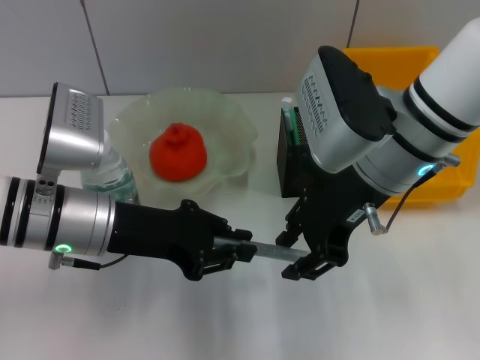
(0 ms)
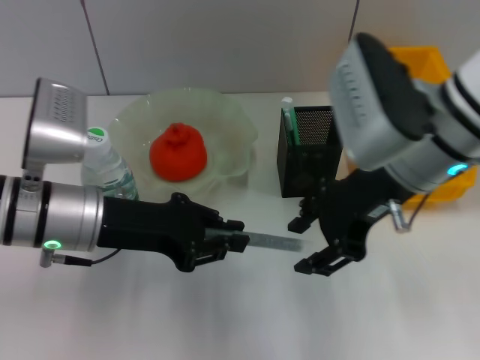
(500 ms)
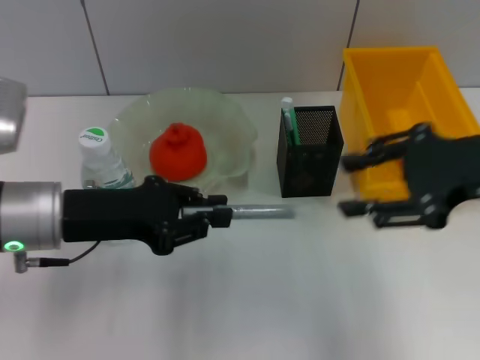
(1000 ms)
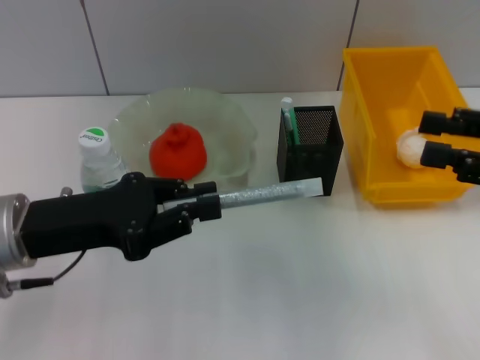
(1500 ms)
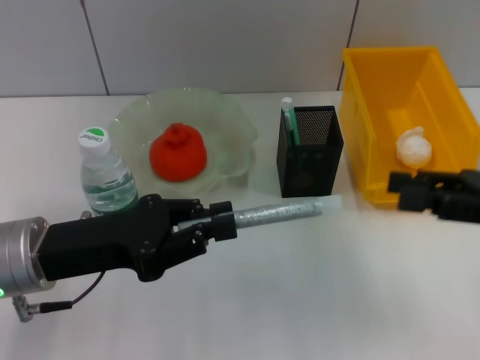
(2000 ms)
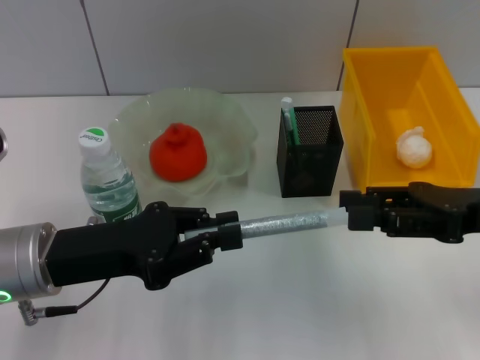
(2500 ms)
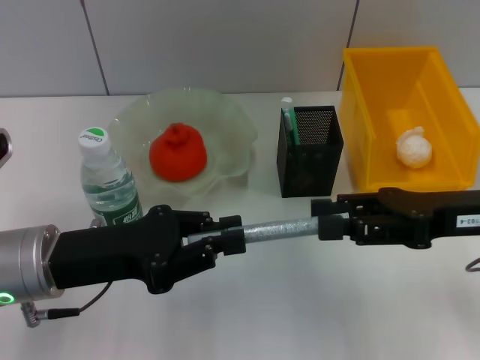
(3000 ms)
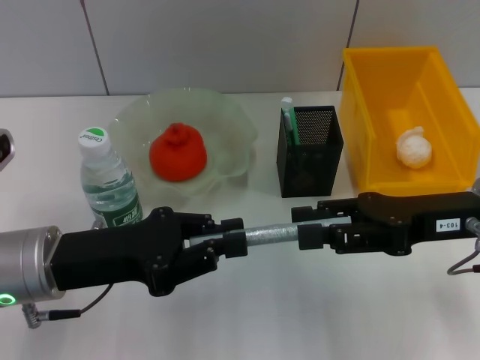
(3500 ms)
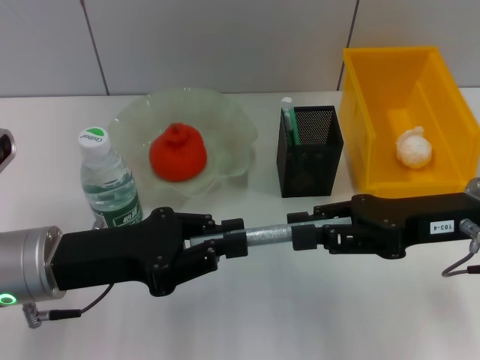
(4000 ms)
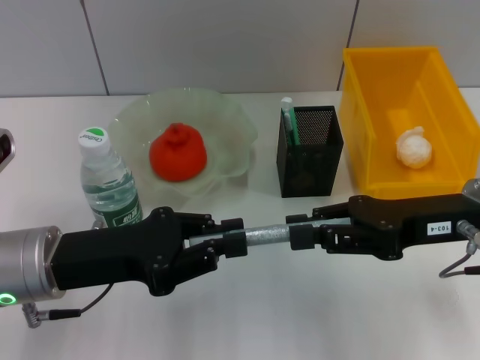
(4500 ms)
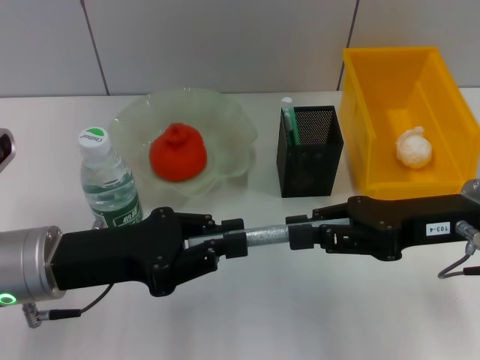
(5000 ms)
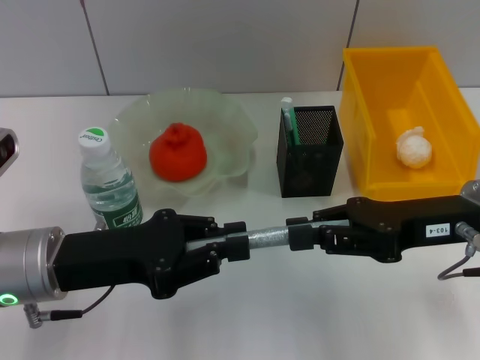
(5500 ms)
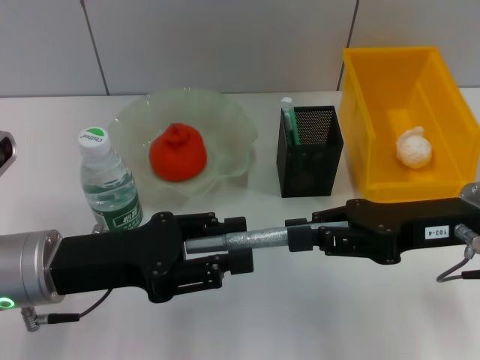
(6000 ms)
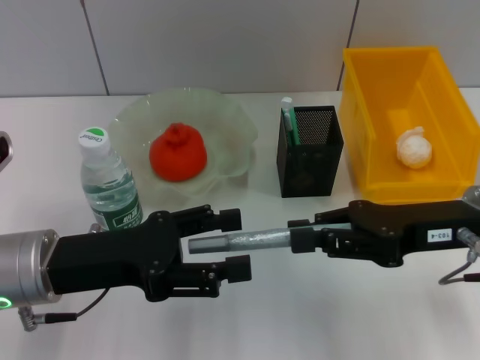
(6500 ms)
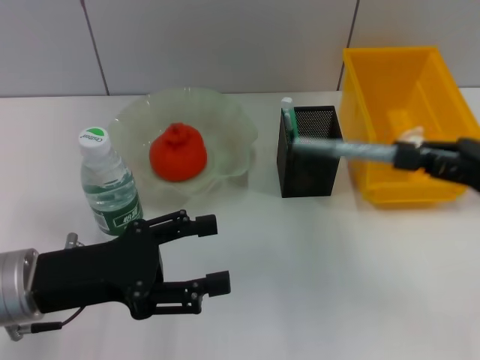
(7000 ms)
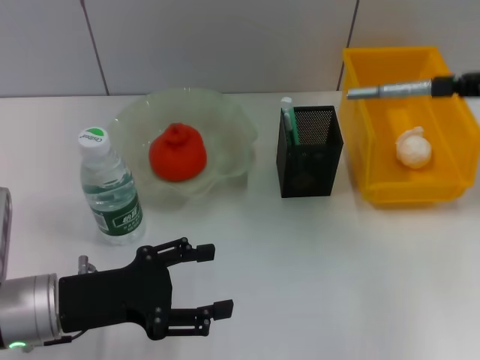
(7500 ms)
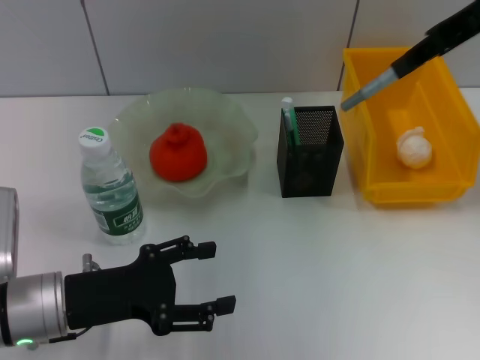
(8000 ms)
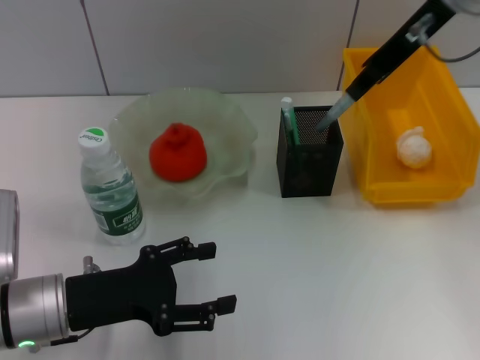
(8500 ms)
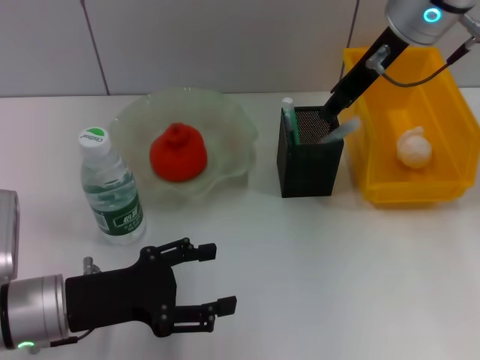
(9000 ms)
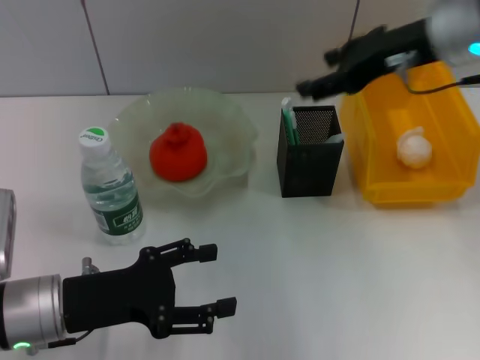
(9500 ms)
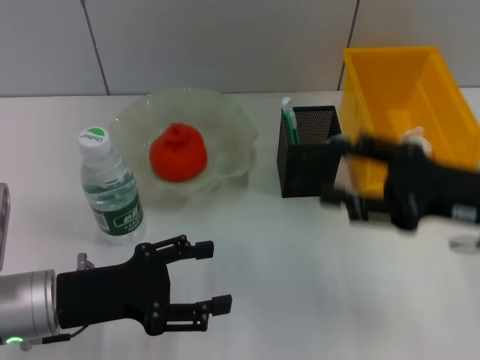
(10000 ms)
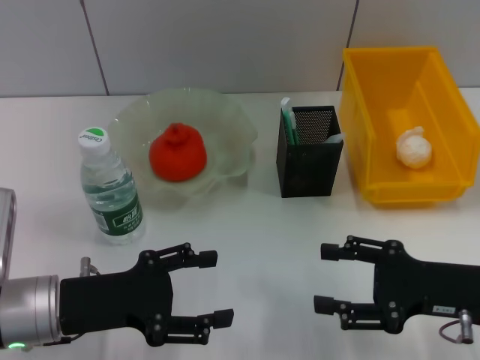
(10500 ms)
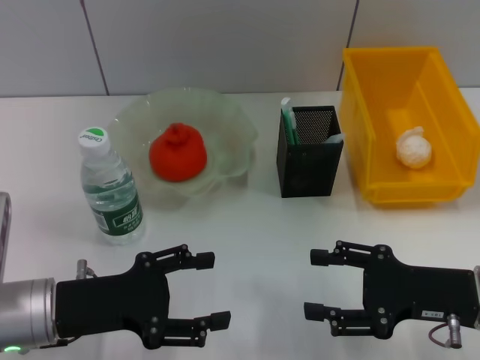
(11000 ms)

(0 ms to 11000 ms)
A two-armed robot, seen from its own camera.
Step, 500 ms - 6000 ms: Pass the gray glue from the left hand to the right hand.
Step, 6500 ms - 9000 ms: Place the gray glue into the pen holder with the right hand.
0 ms - 2000 ms: The left gripper moves backward, roughly 5 cm. The right gripper is displaced to the right by some 20 cm, and opens.
2000 ms - 3500 ms: The right gripper is displaced to the left by approximately 5 cm.
3500 ms - 5500 ms: The right gripper closes its fingers.
5500 ms - 7500 ms: The left gripper moves approximately 5 cm, and opens its fingers. The right gripper goes approximately 15 cm to the right, upward and forward.
7500 ms - 9000 ms: The right gripper travels to the left and forward by approximately 20 cm.
9000 ms - 11000 ms: The right gripper moves downward, backward and to the right, roughly 30 cm, and opens up.

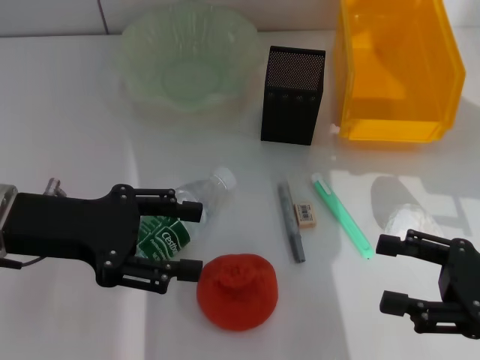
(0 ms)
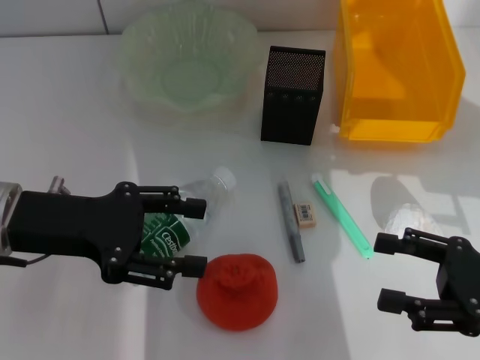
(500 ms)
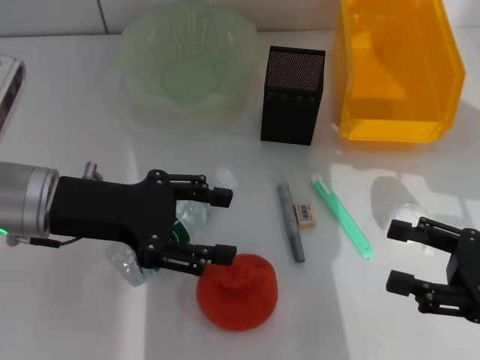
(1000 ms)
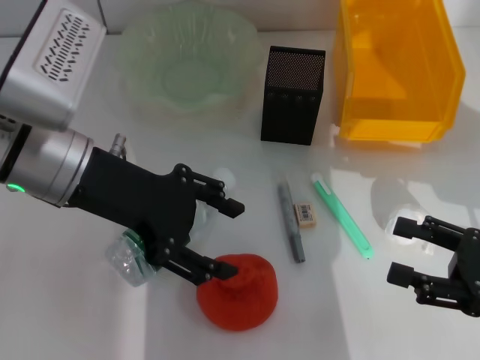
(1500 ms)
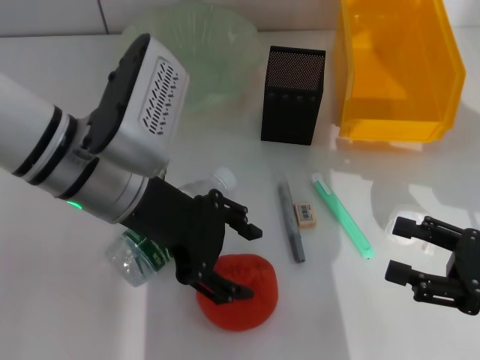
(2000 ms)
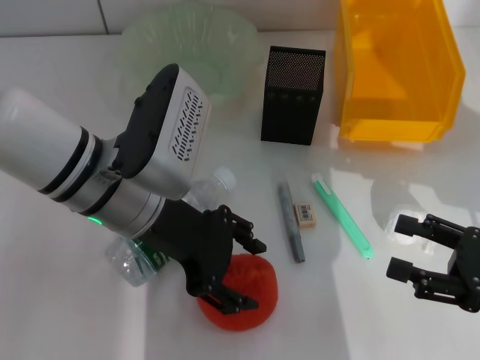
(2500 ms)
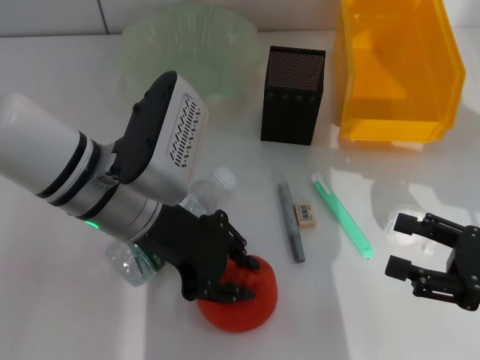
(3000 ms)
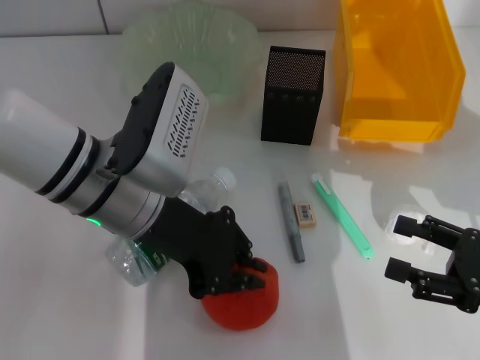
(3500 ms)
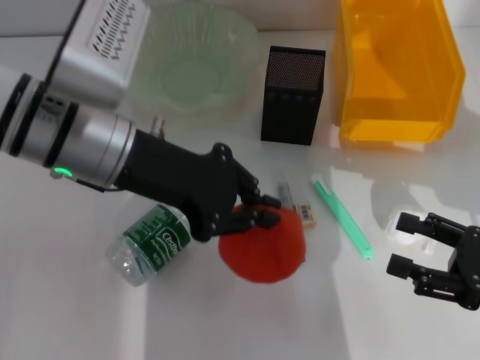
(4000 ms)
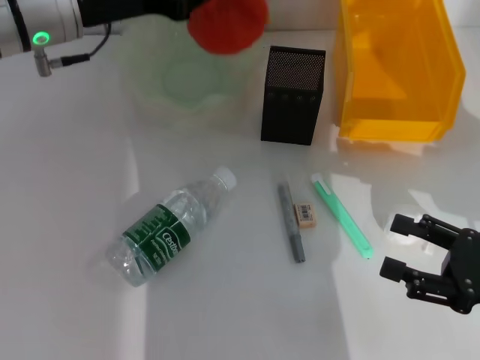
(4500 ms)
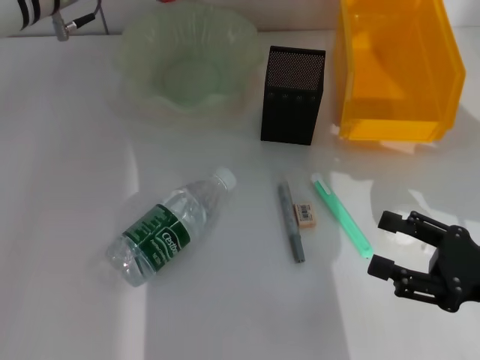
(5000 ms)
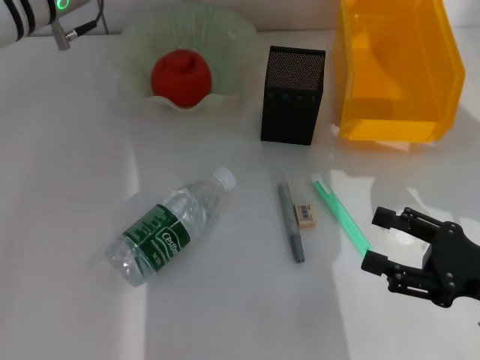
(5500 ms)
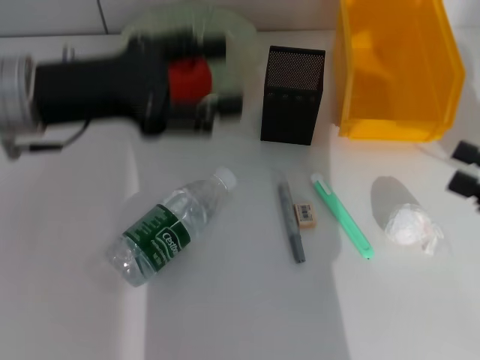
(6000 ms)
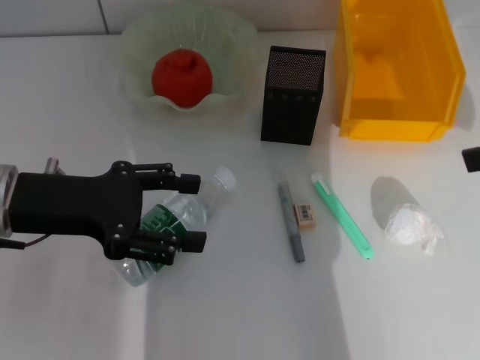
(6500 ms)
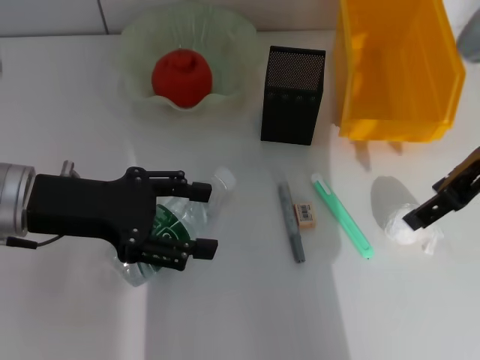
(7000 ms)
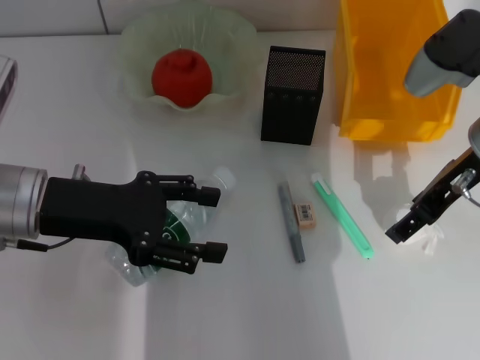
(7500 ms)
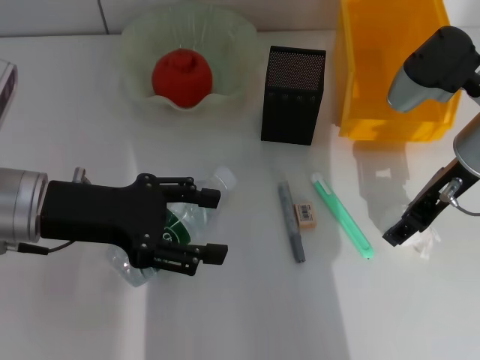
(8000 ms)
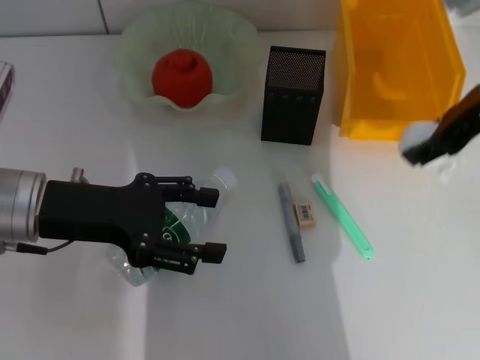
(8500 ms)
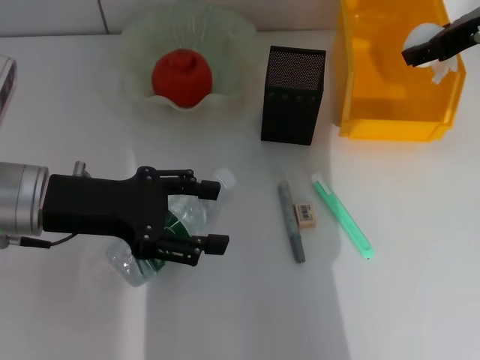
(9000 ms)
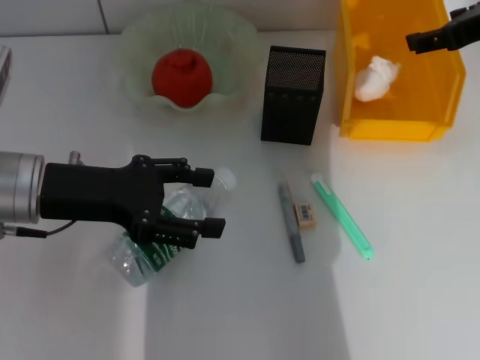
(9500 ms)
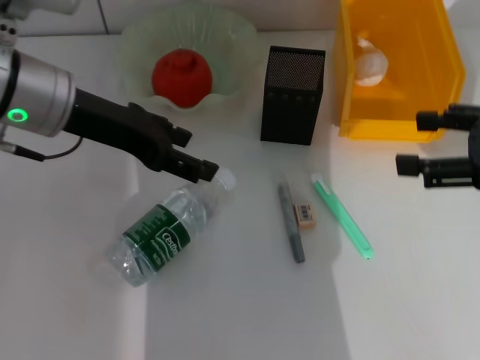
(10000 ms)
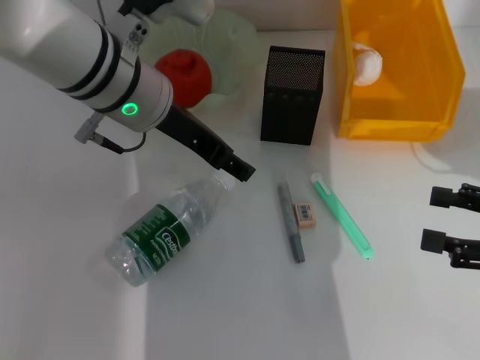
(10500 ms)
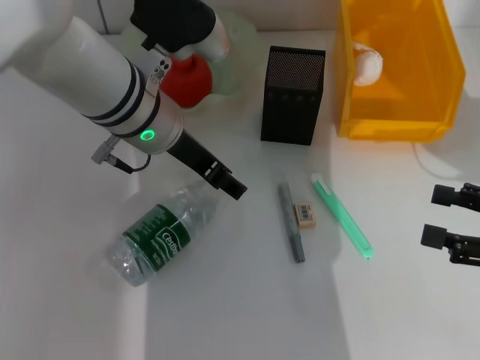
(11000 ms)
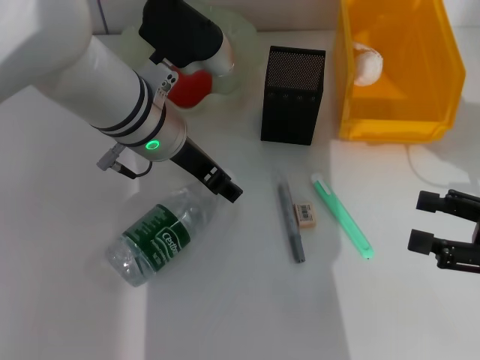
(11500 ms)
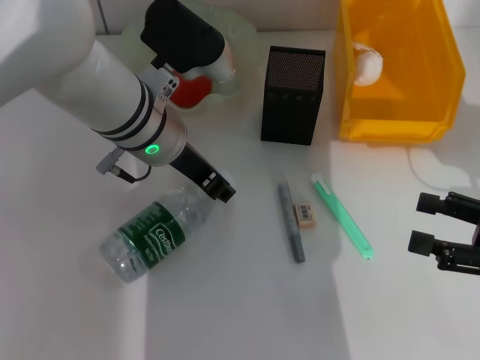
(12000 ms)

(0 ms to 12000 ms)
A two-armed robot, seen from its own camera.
Step, 0 ms - 3000 ms: Grab the orange with the left hand.
Step, 3500 ms - 5500 ms: Place the orange into the fruit bowl with the left hand.
Step, 6000 ms - 7500 ms: Grab the paper ball with the right hand.
Step, 8000 ms - 9000 ms: Place the paper ball into the trash can with the right hand.
0 ms - 2000 ms: The left gripper travels to the right by roughly 10 cm.
2000 ms - 4000 ms: The left gripper closes.
4000 ms - 6000 ms: The left gripper shifts some 5 cm to the left, travels forward and back again, approximately 15 cm each way, and opens up. Meanwhile the right gripper shifts approximately 5 cm upward.
6000 ms - 8000 ms: The left gripper shifts by roughly 5 cm. Meanwhile the right gripper is displaced to the left and forward by about 20 cm, and reaches some 15 cm upward, then returns.
8000 ms - 10000 ms: The right gripper goes approximately 15 cm to the right and backward. Meanwhile the left gripper moves upward and forward, about 10 cm.
10000 ms - 12000 ms: The left gripper moves to the right and downward, roughly 10 cm, and closes its fingers. The right gripper moves downward and backward, approximately 10 cm.

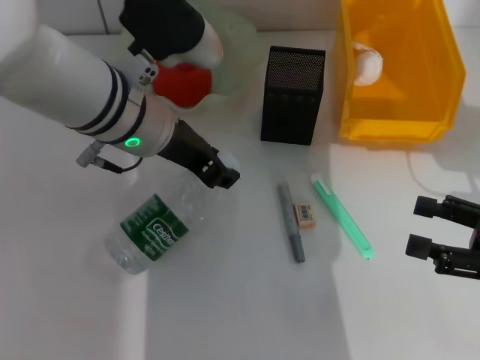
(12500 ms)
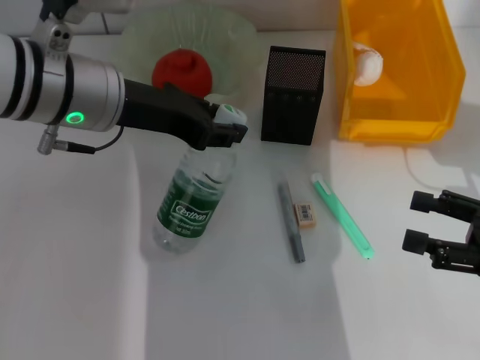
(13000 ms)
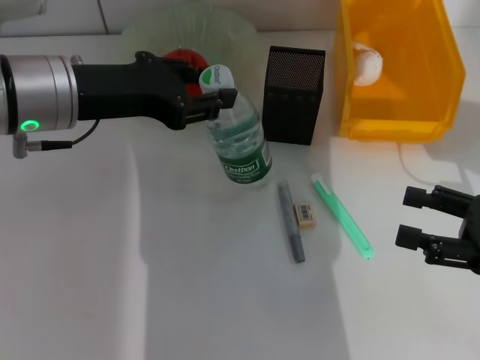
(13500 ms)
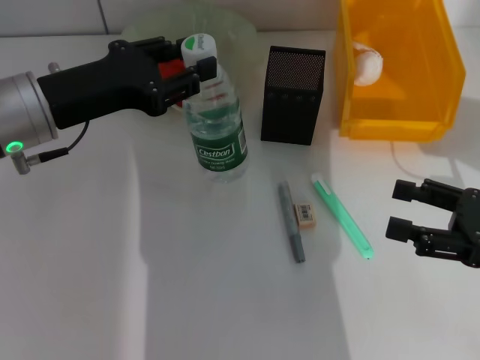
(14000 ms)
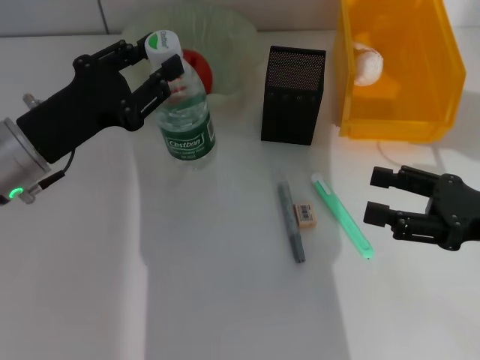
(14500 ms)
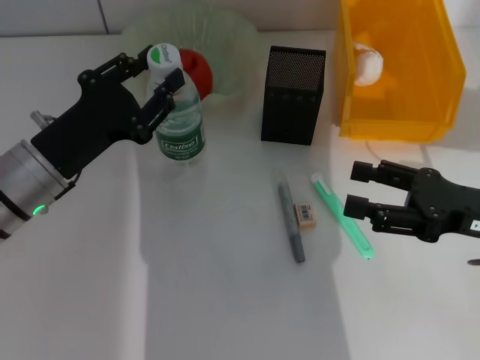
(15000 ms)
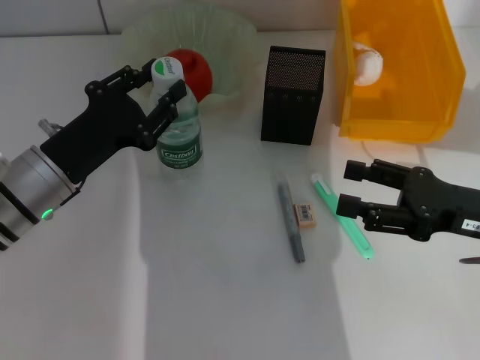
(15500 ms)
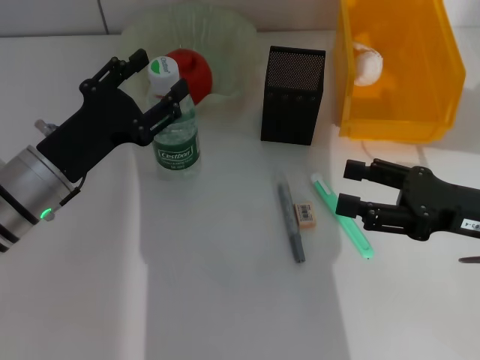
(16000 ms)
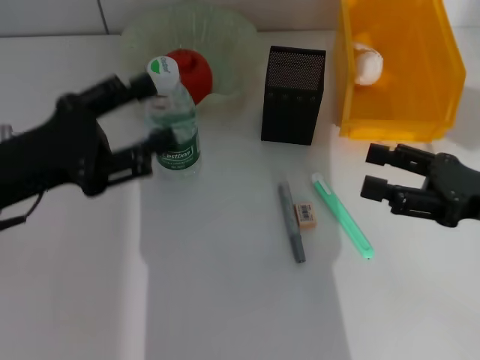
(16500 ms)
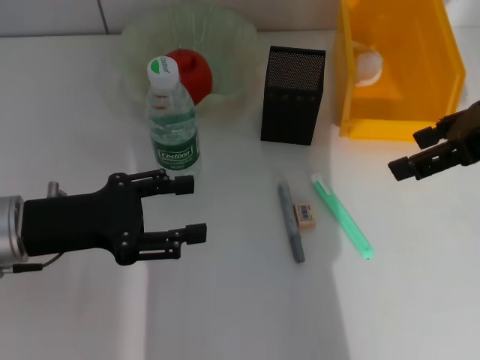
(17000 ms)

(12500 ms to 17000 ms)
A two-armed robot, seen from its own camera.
Step, 12500 ms - 15500 ms: Place the water bottle on the table with the left hand.
12500 ms - 14500 ms: The left gripper shifts approximately 15 cm to the left and downward.
14500 ms - 17000 ms: The right gripper moves upward and forward, roughly 15 cm. Meanwhile the left gripper opens.
